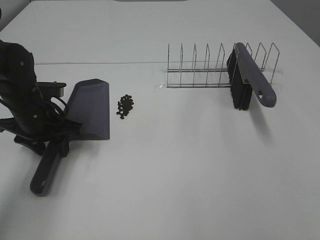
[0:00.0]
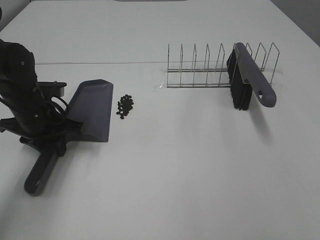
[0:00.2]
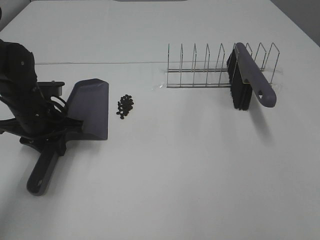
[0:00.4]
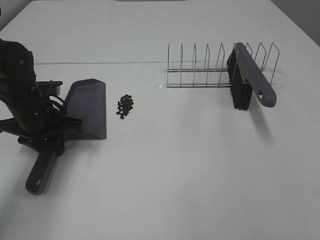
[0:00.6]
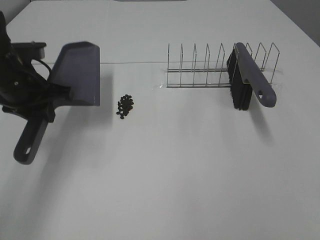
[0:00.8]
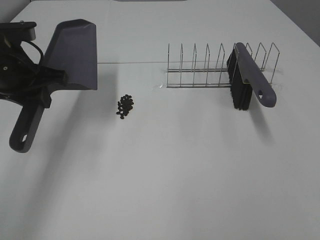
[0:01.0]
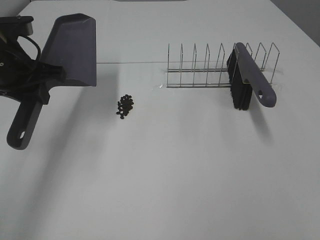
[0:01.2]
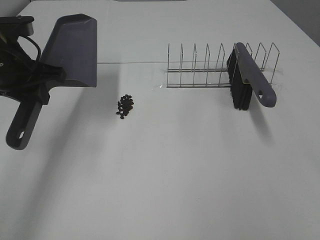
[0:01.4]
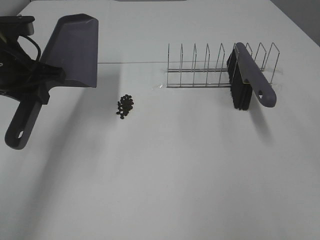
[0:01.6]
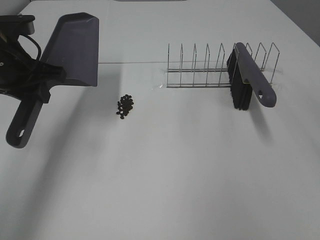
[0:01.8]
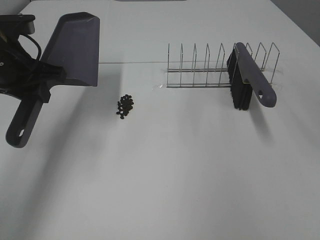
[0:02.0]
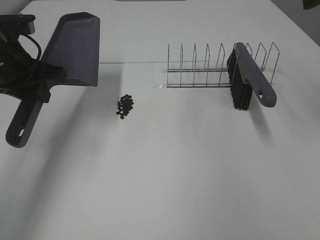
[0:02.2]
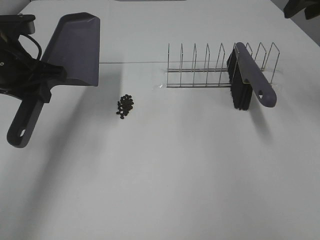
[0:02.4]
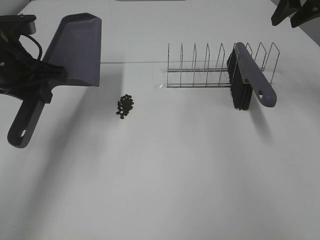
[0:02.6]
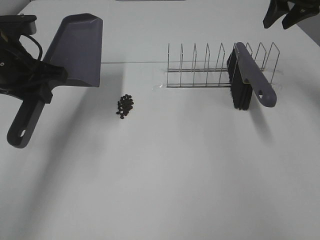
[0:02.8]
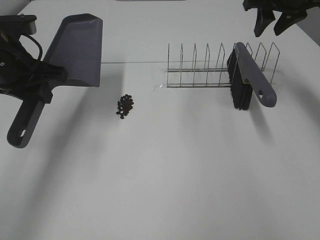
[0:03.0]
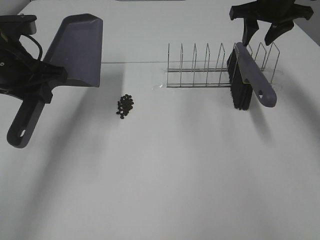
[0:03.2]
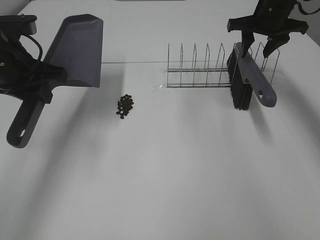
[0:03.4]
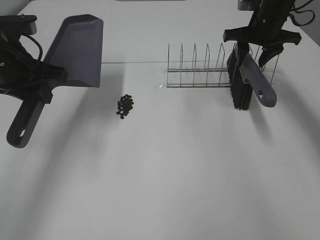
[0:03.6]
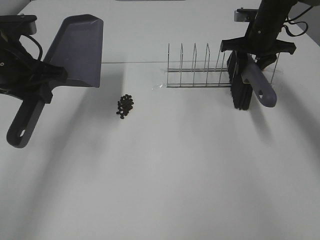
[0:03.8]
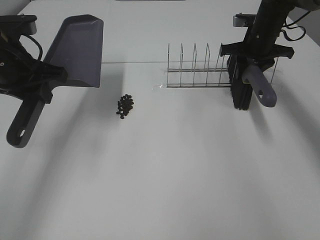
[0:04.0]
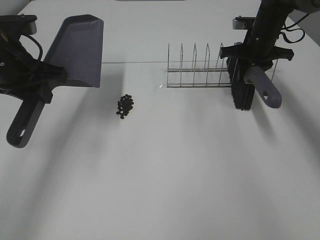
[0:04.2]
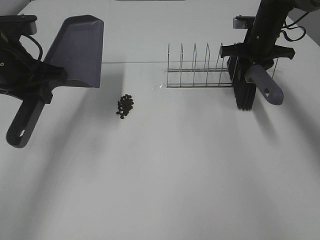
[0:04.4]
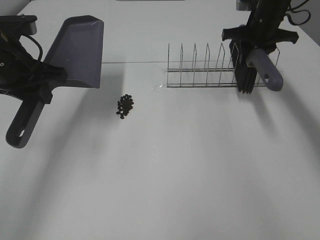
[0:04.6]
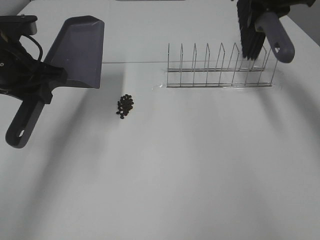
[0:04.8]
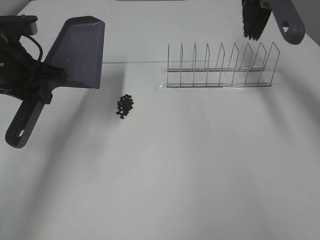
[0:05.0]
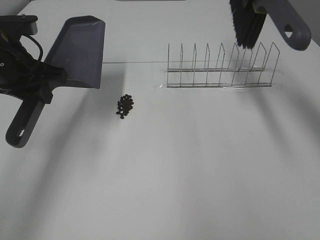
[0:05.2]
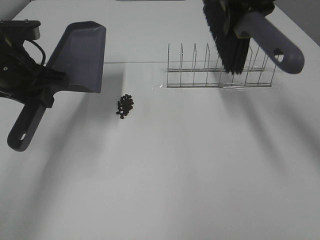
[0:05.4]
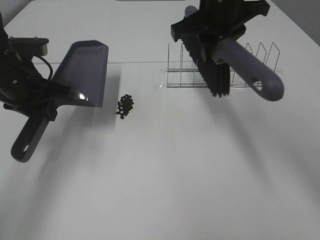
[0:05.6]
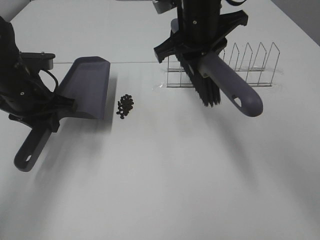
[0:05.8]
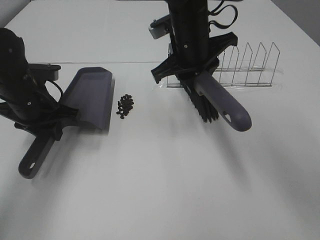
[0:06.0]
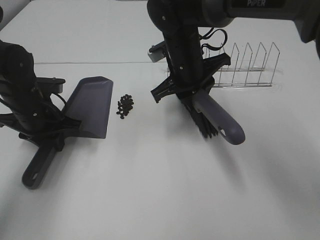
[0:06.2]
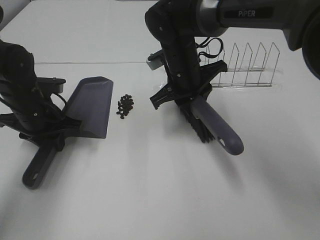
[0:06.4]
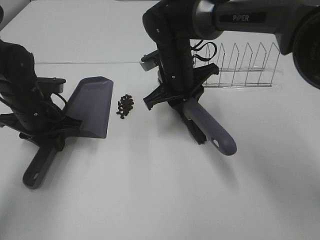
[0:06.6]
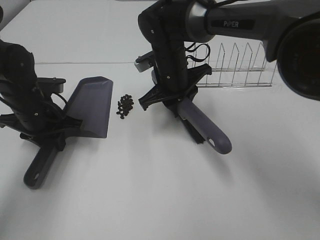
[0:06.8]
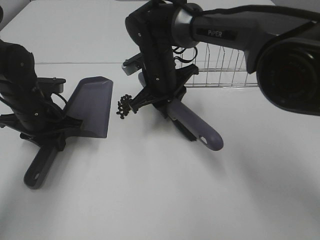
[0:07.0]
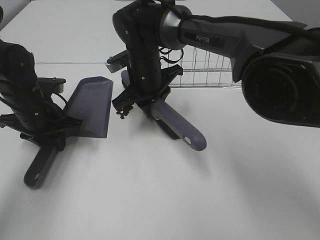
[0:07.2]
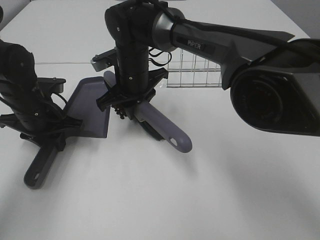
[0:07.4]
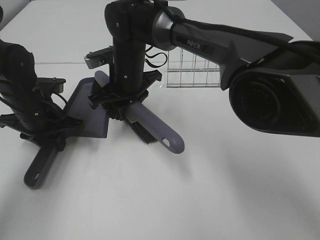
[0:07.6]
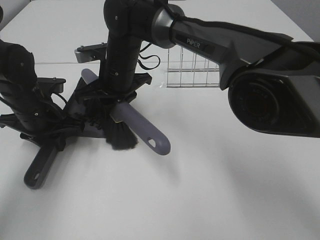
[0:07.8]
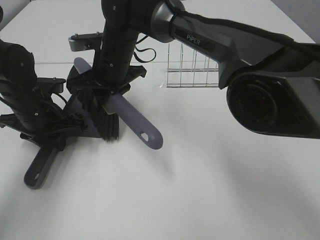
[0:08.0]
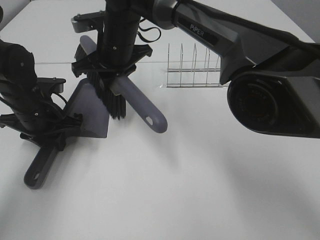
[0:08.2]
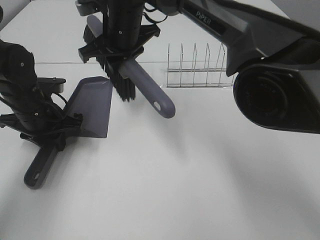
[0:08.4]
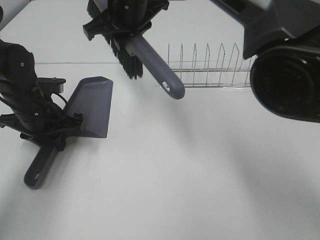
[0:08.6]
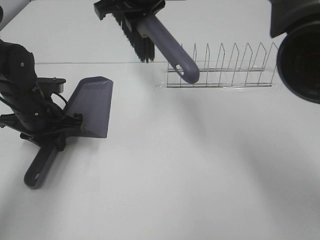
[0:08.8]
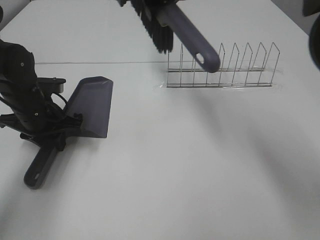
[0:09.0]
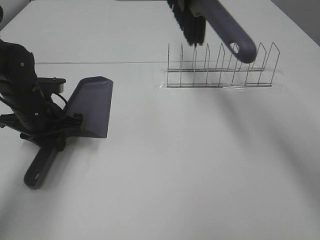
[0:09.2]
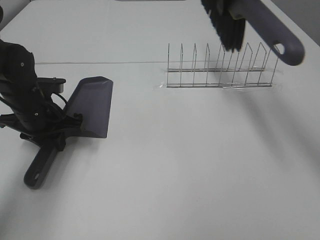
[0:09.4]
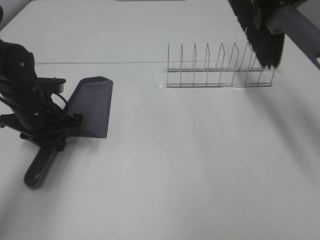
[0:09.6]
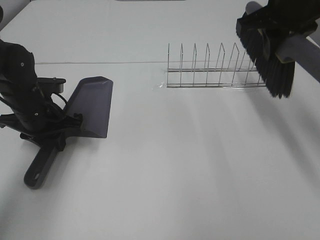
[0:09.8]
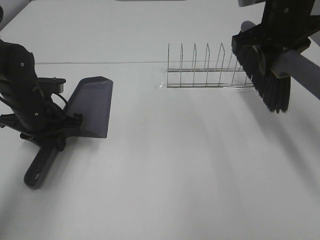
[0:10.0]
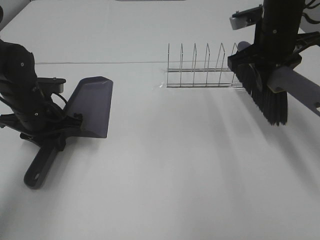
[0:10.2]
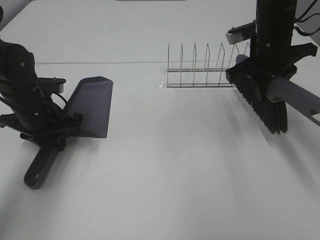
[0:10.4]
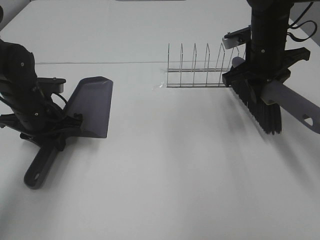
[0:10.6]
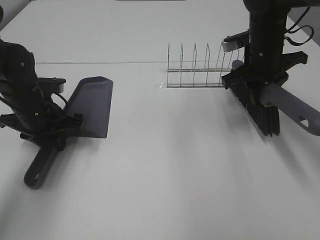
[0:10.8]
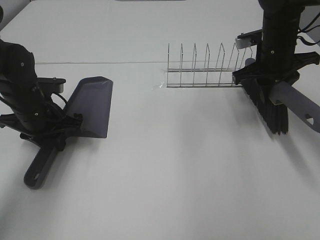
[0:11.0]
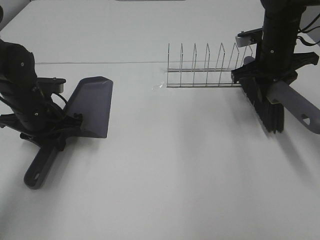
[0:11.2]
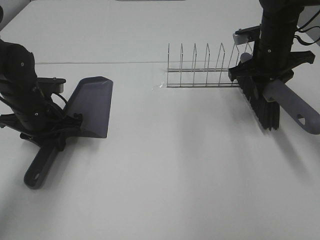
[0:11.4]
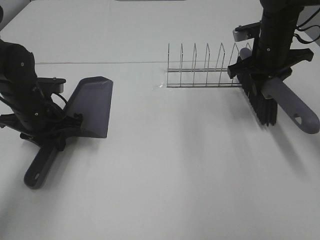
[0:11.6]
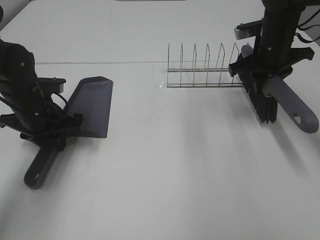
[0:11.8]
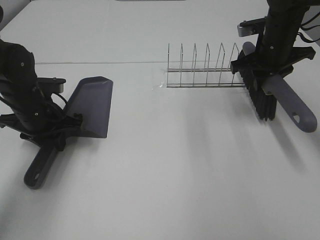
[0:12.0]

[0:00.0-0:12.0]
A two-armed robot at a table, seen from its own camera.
Task of the whole recording: Sweep Coffee Bean.
Step, 0:00.6 to 0:06.4: Left hand: move the dustpan to the left side of the coffee beans.
Step, 0:01.2 to 0:04.2: Right hand:grab the broom.
Step, 0:04.4 to 0:08.2: Right hand:sweep the coffee beans into the dustpan.
0:00.0 to 0:01.6: The right gripper moves forward, approximately 10 cm, while the left gripper moves upward, approximately 10 cm, and closes its fingers.
0:01.6 to 0:03.0: The right gripper goes some 35 cm forward.
0:03.0 to 0:04.4: The right gripper travels downward by approximately 10 cm.
0:04.4 to 0:06.0: The left gripper travels downward by some 10 cm; the right gripper shifts roughly 20 cm to the left and backward.
0:06.0 to 0:07.6: The right gripper shifts about 15 cm to the left and downward.
0:07.6 to 0:09.0: The right gripper moves upward and to the right, roughly 20 cm.
0:09.0 to 0:10.4: The right gripper shifts some 20 cm to the right and downward.
0:10.4 to 0:12.0: The right gripper moves approximately 5 cm.

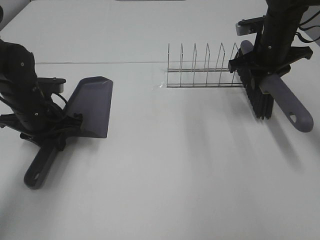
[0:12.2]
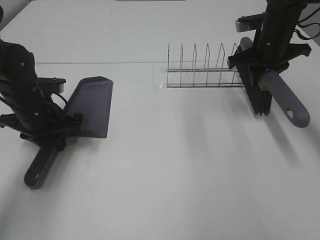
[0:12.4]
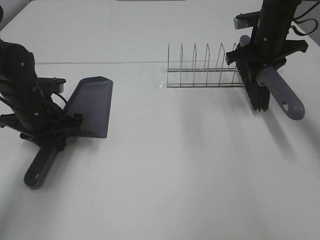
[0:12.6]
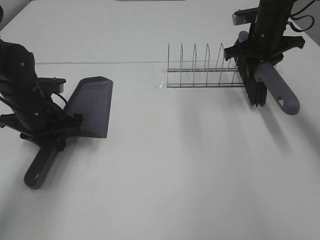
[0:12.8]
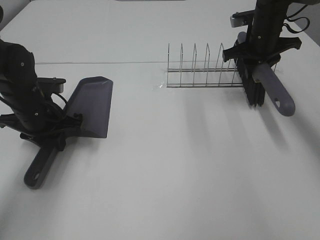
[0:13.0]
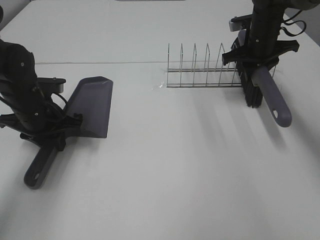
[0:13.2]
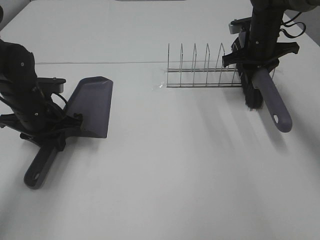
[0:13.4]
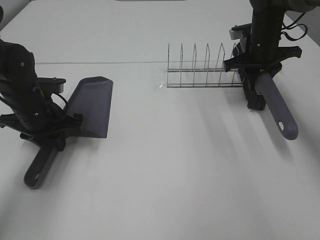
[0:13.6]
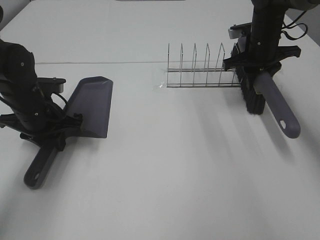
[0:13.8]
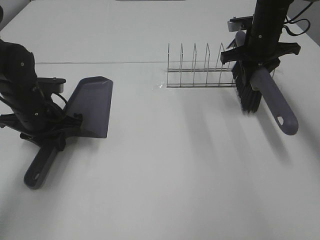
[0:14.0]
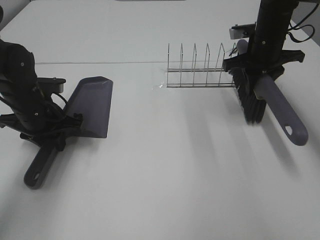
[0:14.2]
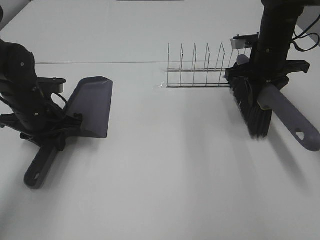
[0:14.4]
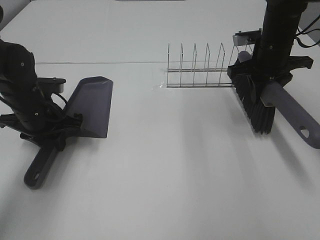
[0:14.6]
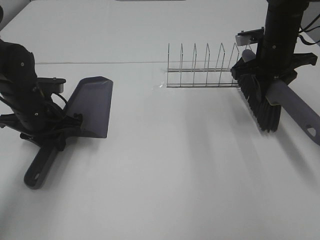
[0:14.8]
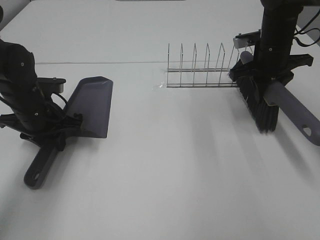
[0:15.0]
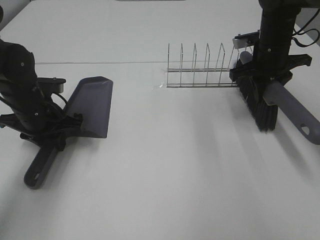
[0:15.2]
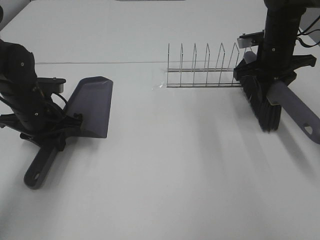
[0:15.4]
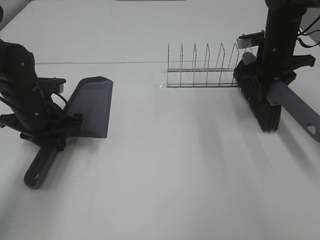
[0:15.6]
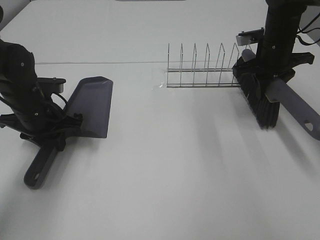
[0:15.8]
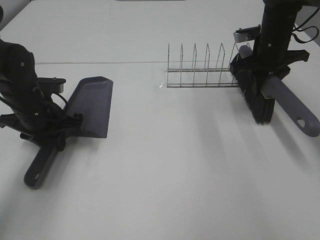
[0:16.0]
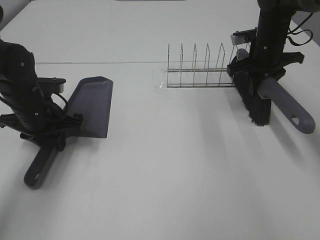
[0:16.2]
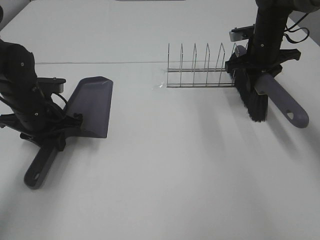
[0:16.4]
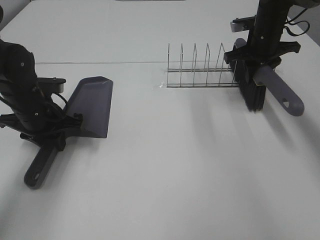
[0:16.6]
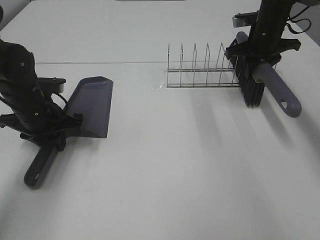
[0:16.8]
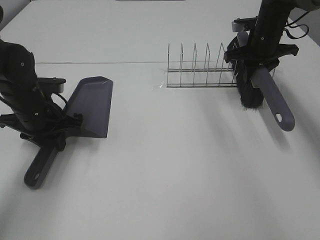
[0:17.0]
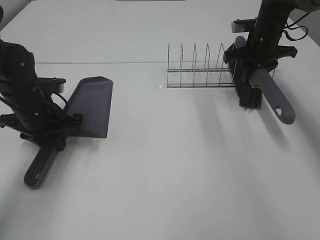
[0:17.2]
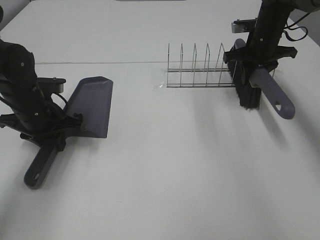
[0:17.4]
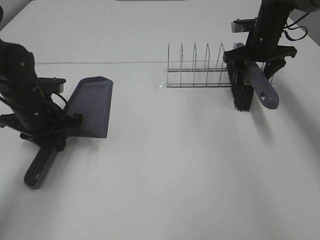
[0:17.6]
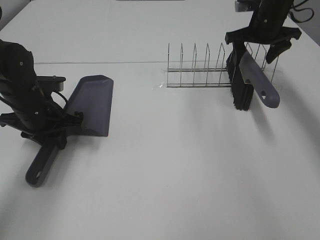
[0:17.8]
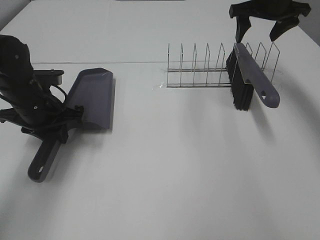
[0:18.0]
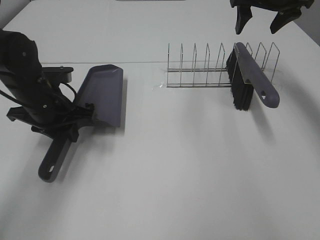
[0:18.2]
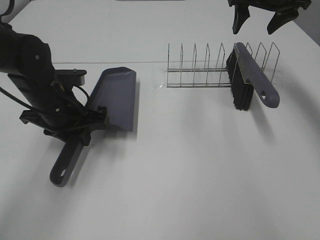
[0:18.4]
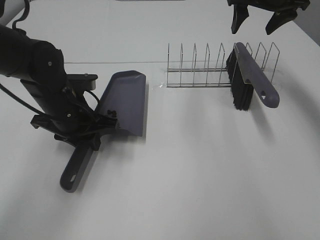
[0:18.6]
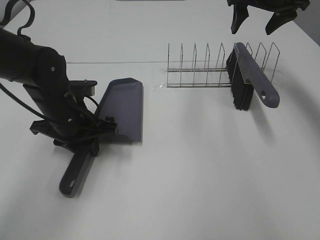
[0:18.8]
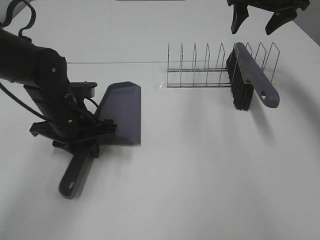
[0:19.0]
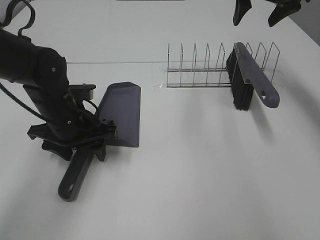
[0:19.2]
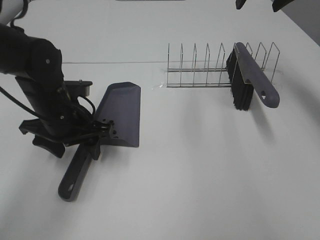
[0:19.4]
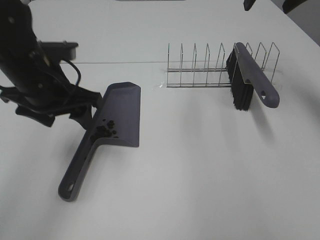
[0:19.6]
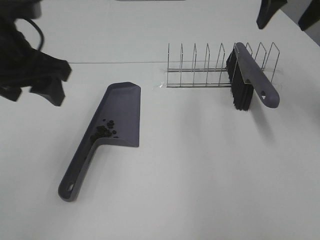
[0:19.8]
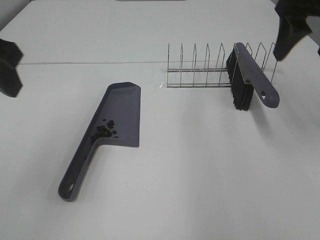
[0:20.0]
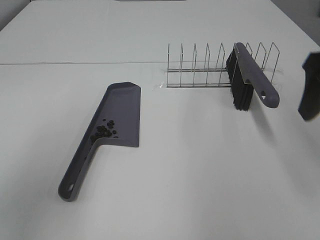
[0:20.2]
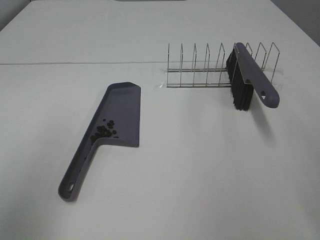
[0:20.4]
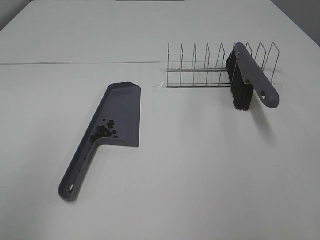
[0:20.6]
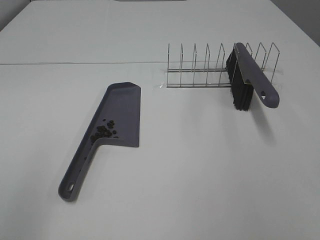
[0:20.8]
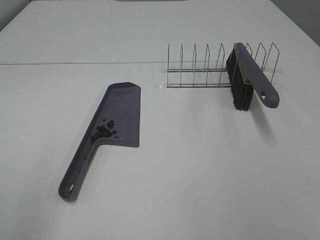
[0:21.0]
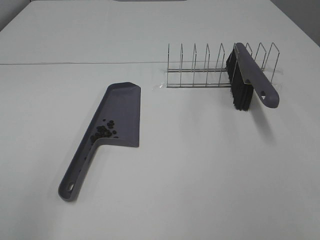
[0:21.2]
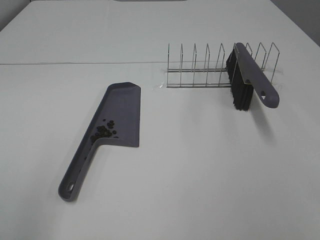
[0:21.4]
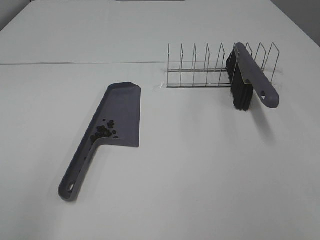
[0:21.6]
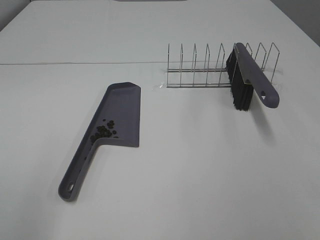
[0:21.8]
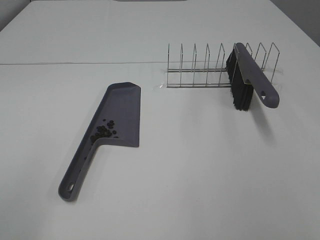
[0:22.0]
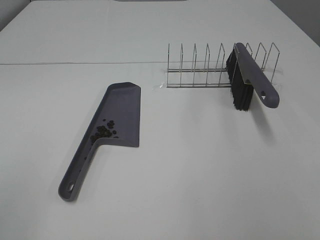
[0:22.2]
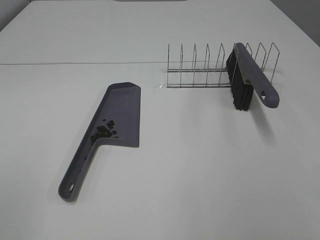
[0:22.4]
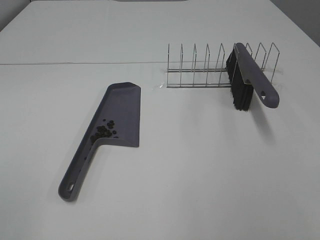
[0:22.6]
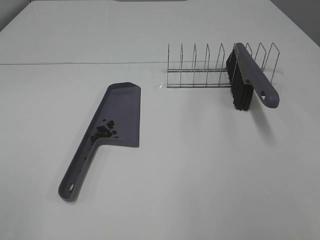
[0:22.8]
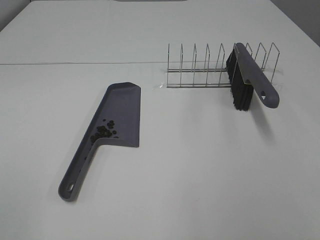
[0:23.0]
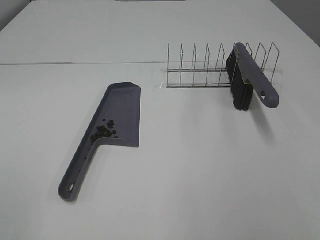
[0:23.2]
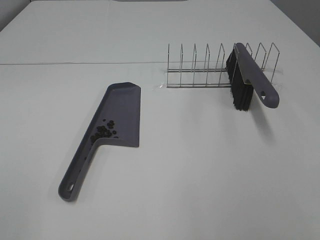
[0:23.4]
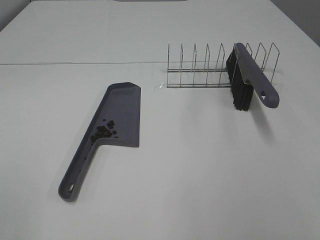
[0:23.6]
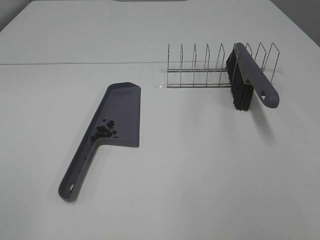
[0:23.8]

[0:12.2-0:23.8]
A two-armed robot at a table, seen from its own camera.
Task of the whole recording: Sweep Coffee Bean.
Step, 0:12.2 to 0:17.8: Right hand:place the broom on the rack.
Step, 0:18.0 to 0:19.4: Left hand:place the dustpan on the table.
0:12.2 to 0:13.6: The right gripper shifts by roughly 5 cm.
0:13.6 to 0:15.0: The grippers stay close to where they were, moving slightly.
0:15.0 to 0:16.6: The right gripper travels forward by roughly 5 cm.
0:16.6 to 0:18.0: The right gripper shifts some 10 cm upward, and opens.
0:18.0 to 0:19.4: The right gripper moves upward, approximately 5 cm. The left gripper heads to the right, covering some 5 cm, and opens up.
0:19.4 to 0:21.0: The right gripper goes roughly 40 cm backward; the left gripper is displaced backward, upward and to the left by approximately 30 cm.
